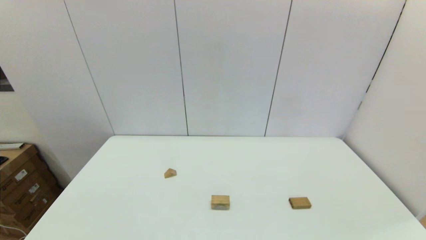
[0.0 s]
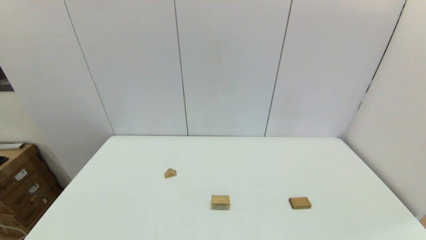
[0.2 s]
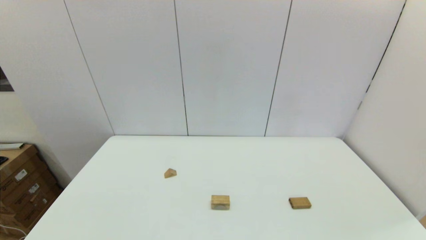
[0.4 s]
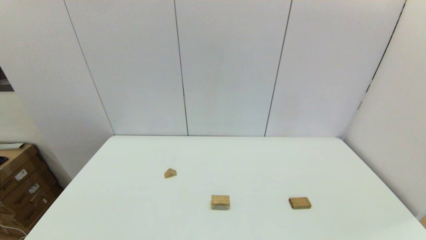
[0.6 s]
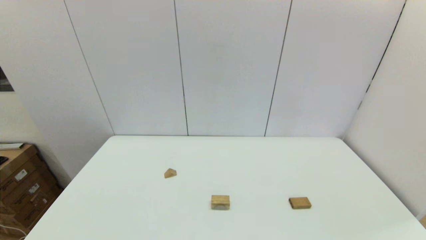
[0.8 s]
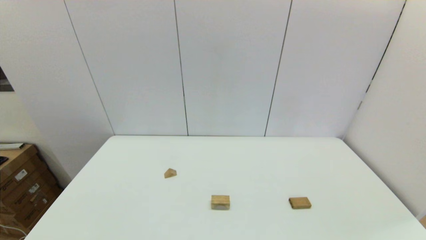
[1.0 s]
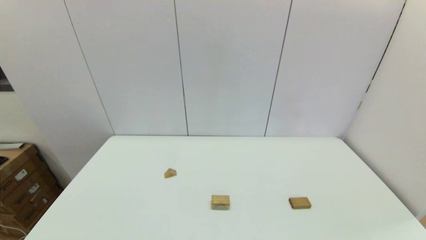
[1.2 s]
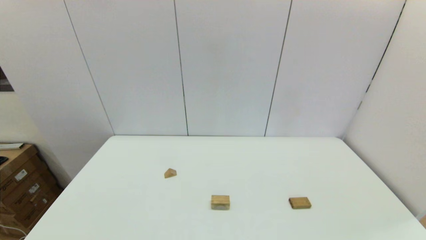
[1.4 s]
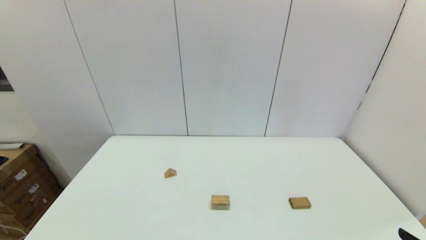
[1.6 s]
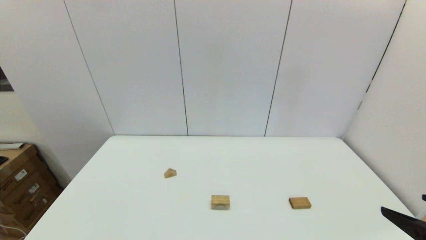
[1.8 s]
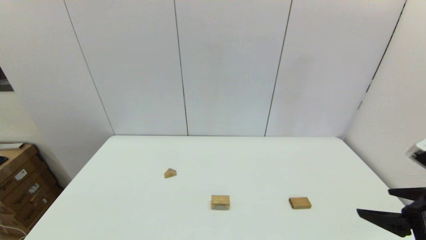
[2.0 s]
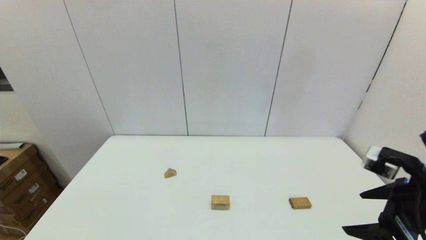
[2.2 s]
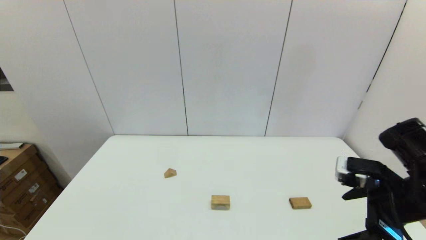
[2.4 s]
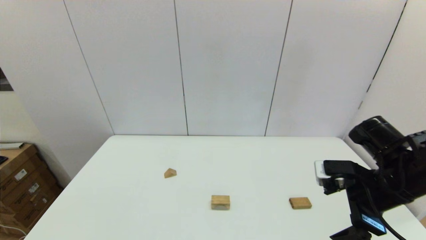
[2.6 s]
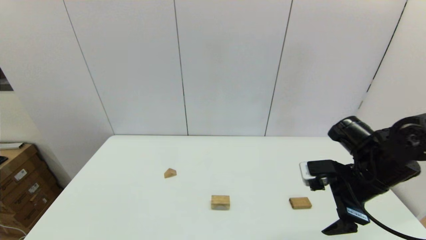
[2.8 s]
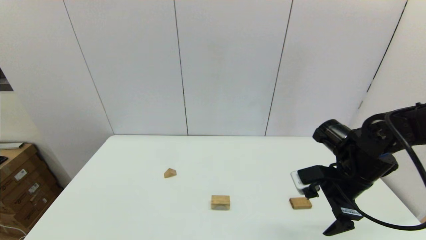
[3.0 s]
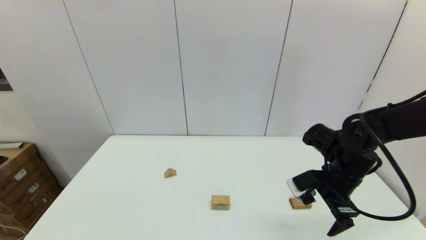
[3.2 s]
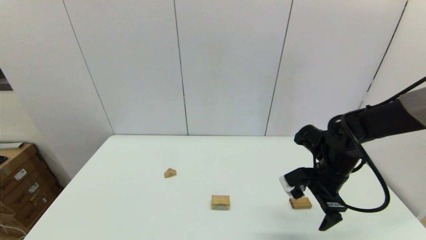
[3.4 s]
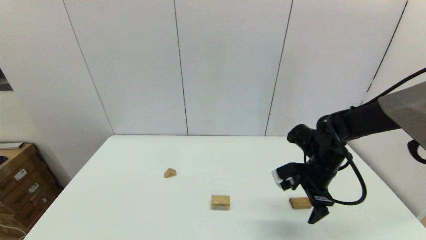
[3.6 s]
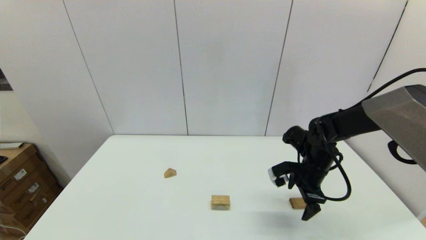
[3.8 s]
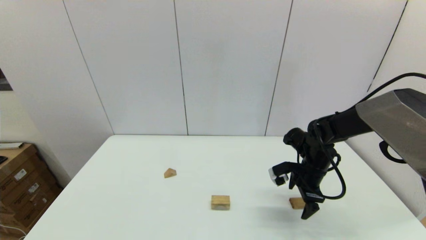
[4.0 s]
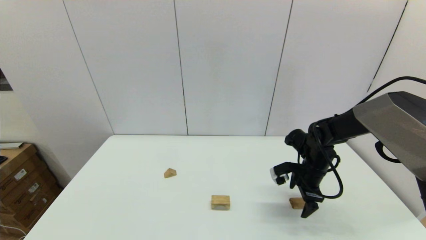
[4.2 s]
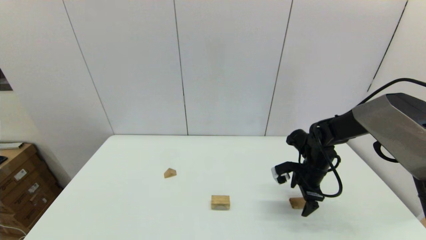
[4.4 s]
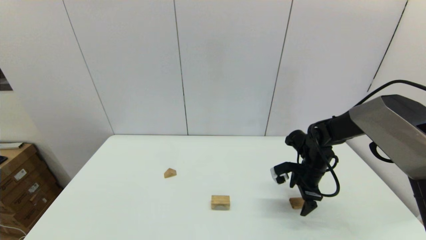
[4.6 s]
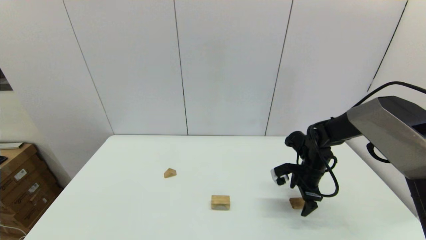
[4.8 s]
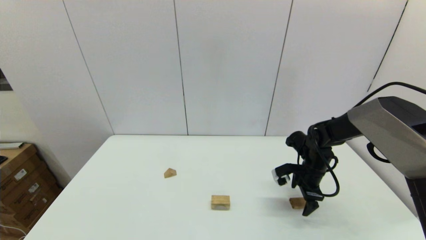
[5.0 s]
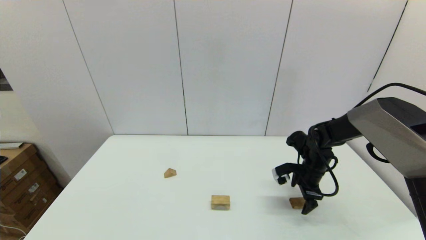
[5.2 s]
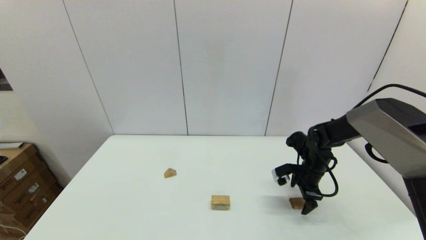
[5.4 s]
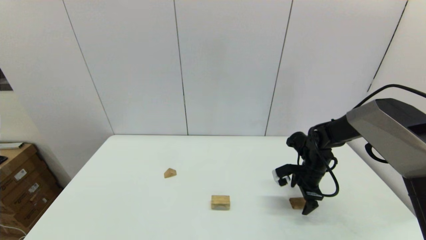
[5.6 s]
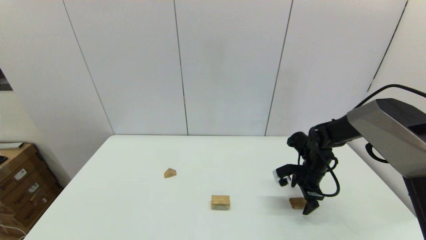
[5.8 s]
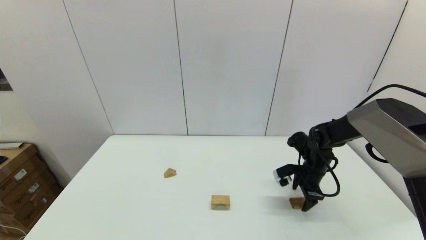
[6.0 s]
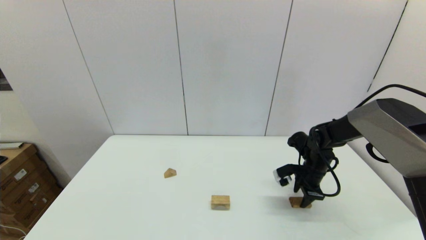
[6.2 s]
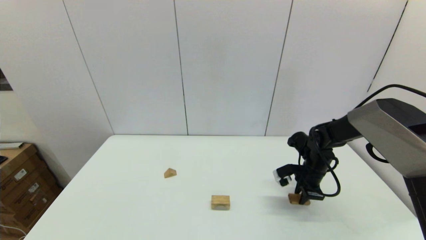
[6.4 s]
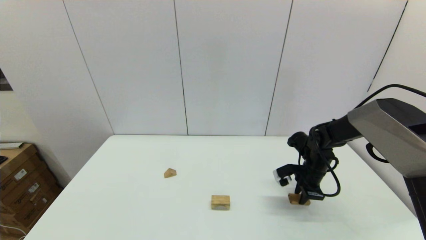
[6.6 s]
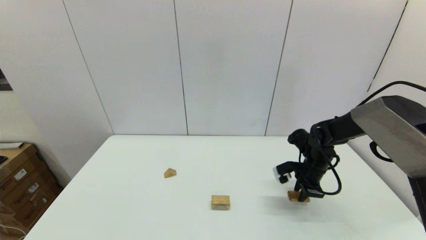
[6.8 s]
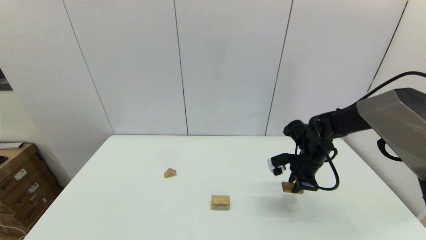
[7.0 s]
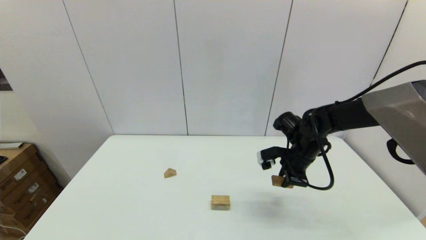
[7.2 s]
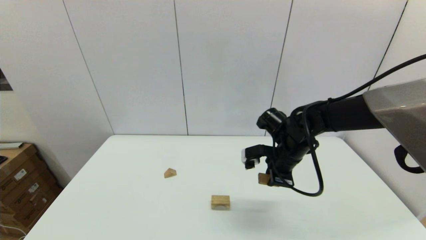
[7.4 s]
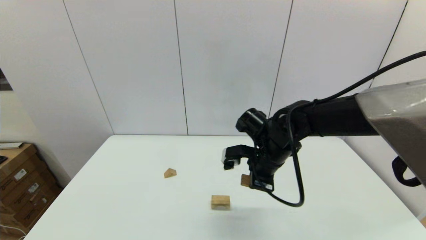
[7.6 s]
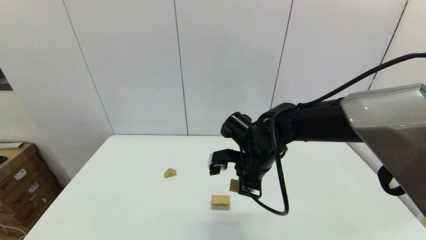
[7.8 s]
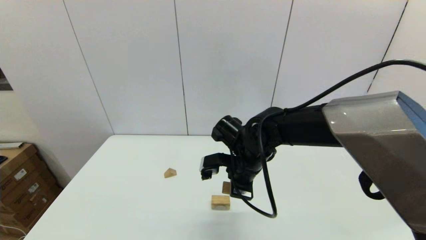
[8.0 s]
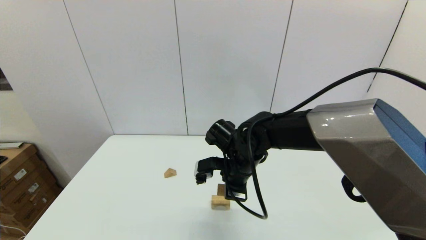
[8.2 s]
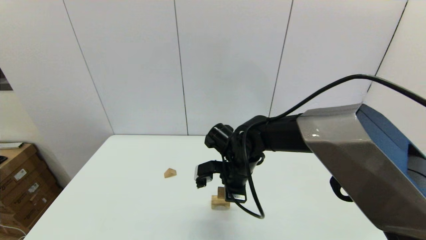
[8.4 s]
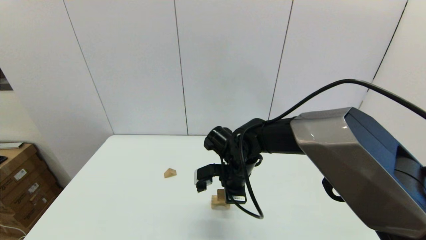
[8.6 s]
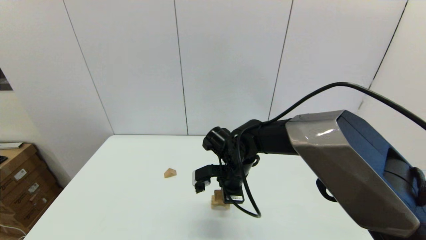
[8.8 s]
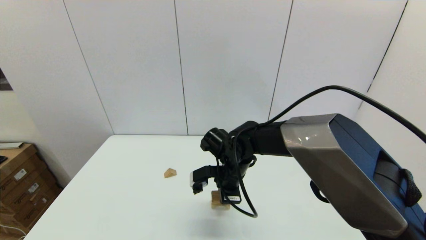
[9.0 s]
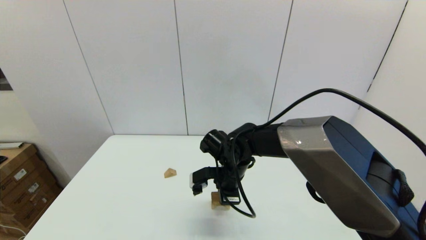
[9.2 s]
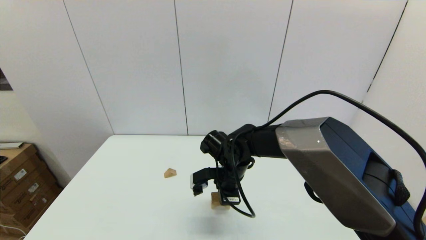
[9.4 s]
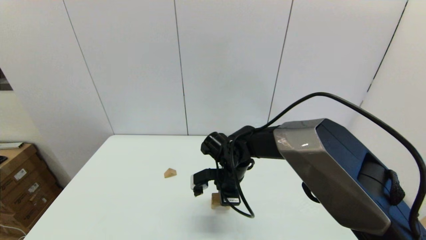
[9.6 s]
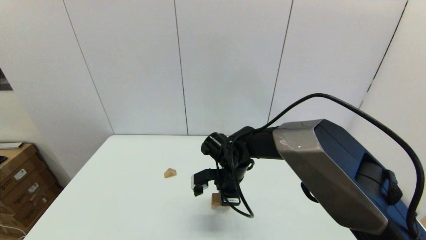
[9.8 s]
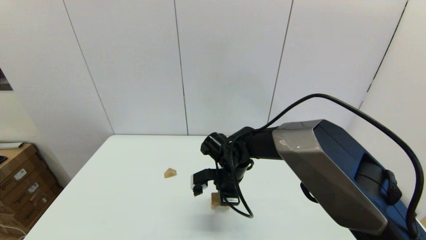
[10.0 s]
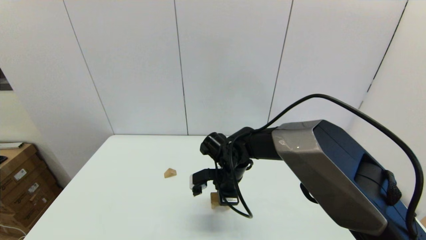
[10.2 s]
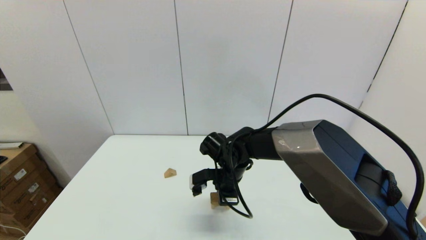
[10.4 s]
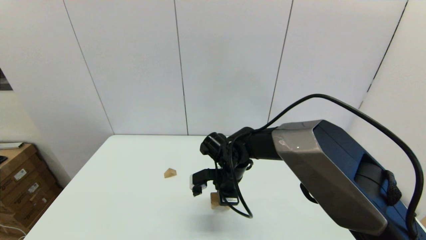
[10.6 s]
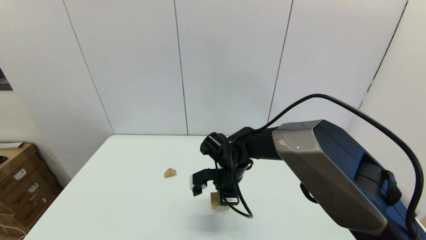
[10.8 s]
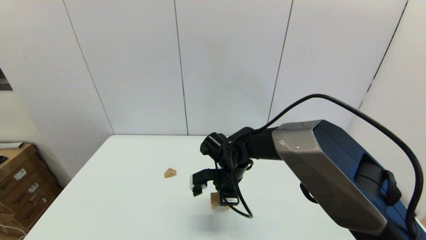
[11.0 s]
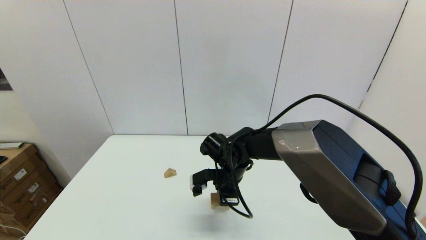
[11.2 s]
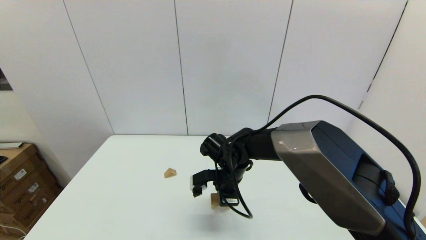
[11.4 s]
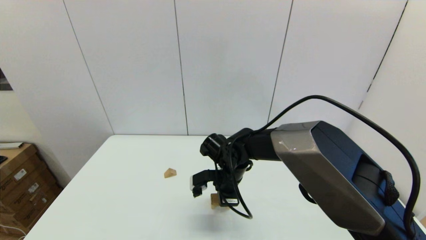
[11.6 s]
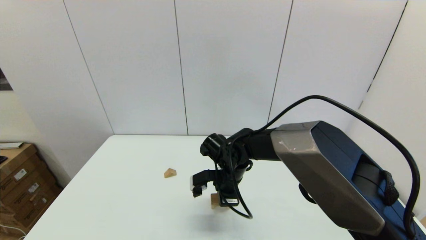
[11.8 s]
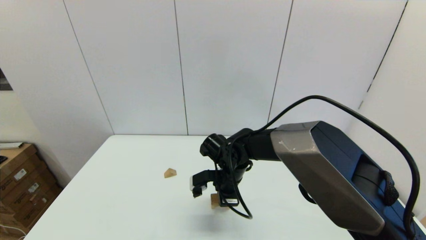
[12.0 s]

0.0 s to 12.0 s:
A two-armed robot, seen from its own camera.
Task of the whole recording: place the arched building blocks in the center of the table, set up the rectangular building blocks, and then set up the triangular building blocks.
Step, 0.0 to 6.2 s: Grasp the box-shaped block with the right gripper.
1.6 to 3.0 s: The right gripper shifts some 25 cm forward.
3.0 to 4.4 s: The right gripper moves forward and downward, some 15 cm.
4.4 to 6.0 s: There are only small adjustments of the grippers.
6.0 to 7.6 s: The right gripper travels to the left, upward and backward by about 20 cm, and closes its fingers.
7.6 to 9.0 s: The right gripper is displaced to the left and downward by some 10 cm.
9.0 to 10.4 s: The grippers stay close to where they were, moving slightly.
10.4 to 12.0 s: Both grippers stay about where they are.

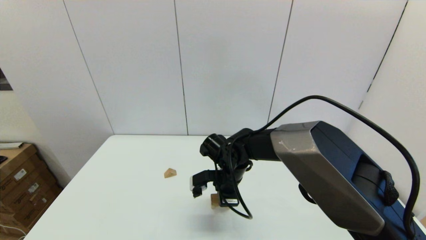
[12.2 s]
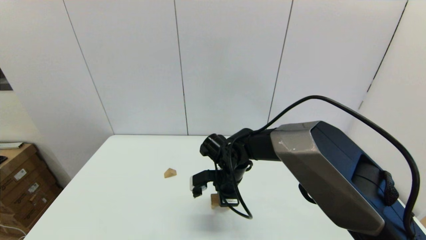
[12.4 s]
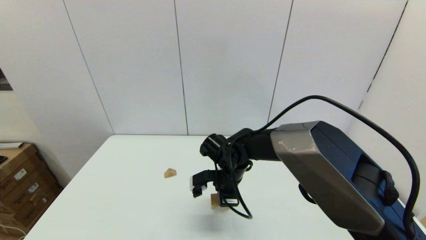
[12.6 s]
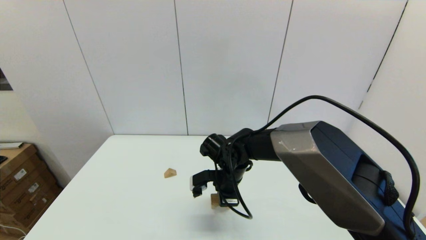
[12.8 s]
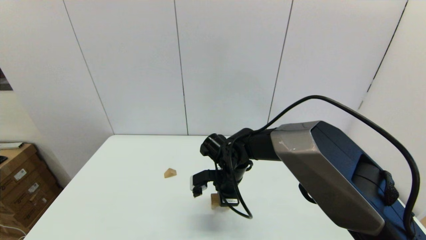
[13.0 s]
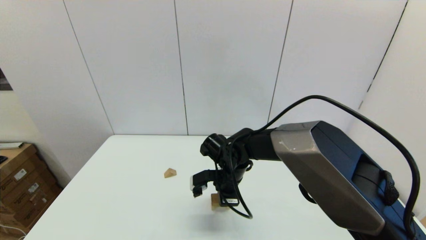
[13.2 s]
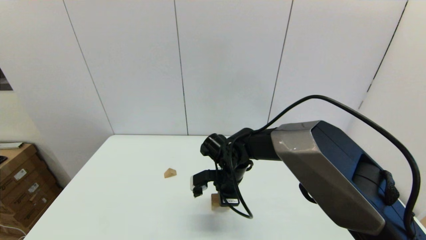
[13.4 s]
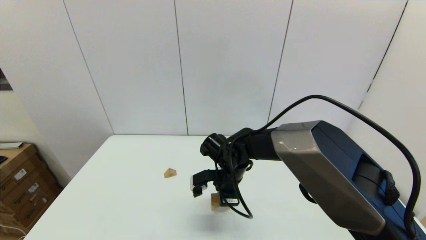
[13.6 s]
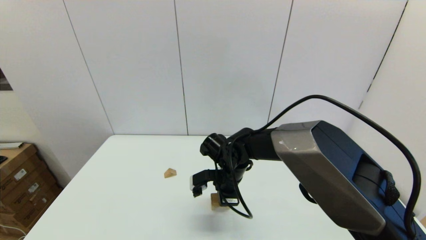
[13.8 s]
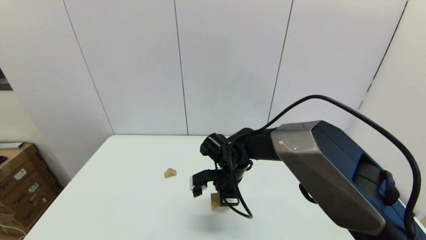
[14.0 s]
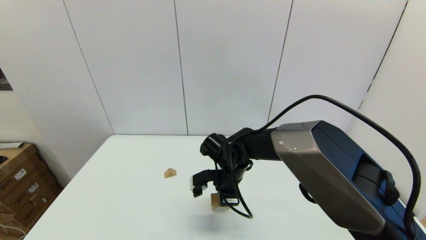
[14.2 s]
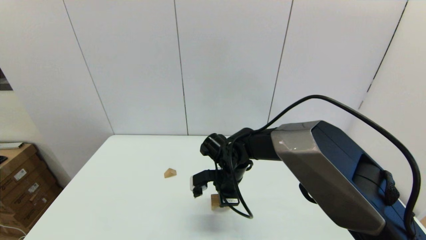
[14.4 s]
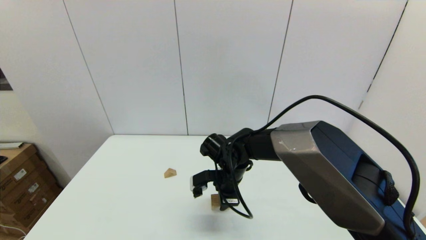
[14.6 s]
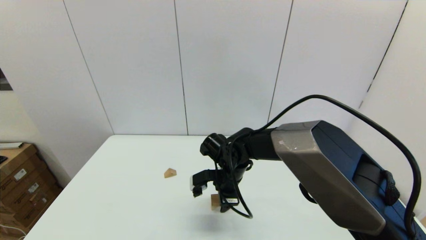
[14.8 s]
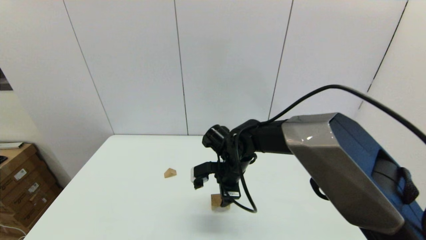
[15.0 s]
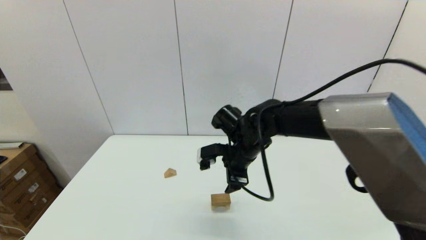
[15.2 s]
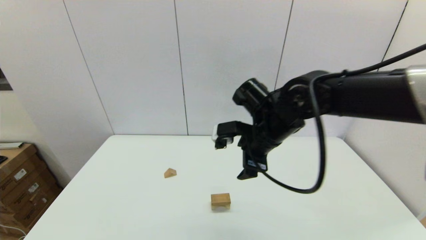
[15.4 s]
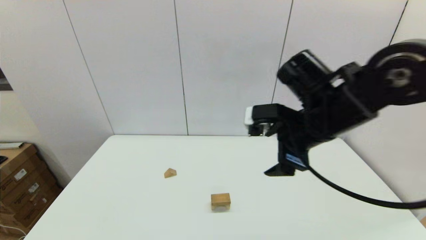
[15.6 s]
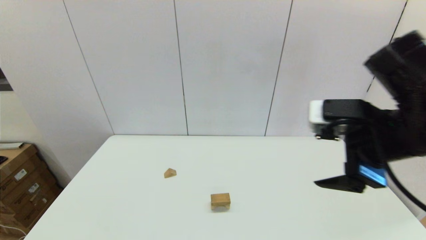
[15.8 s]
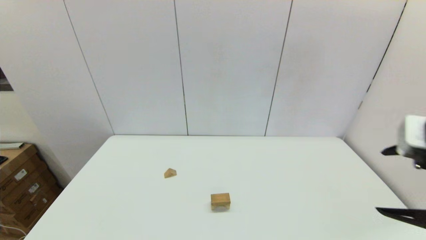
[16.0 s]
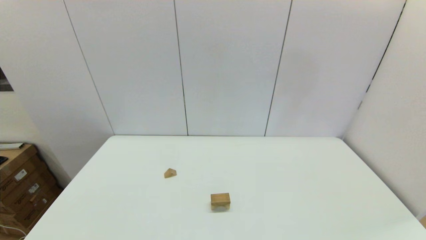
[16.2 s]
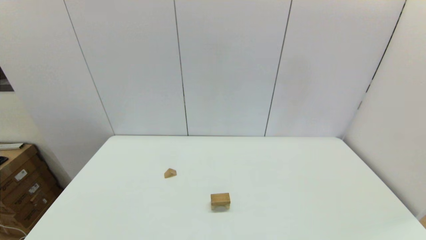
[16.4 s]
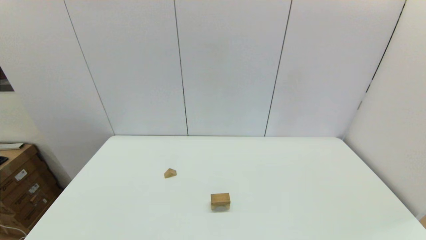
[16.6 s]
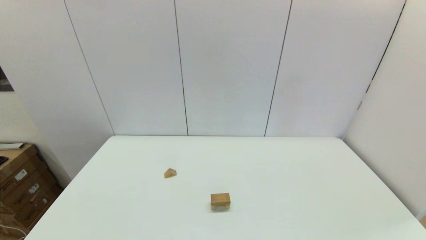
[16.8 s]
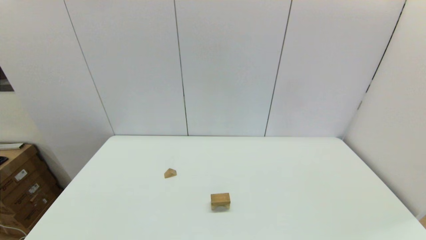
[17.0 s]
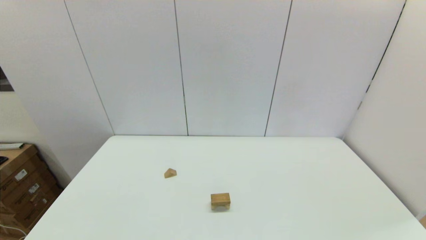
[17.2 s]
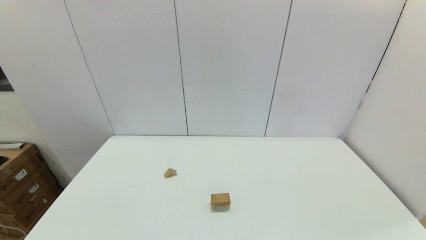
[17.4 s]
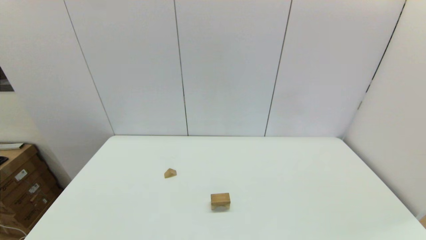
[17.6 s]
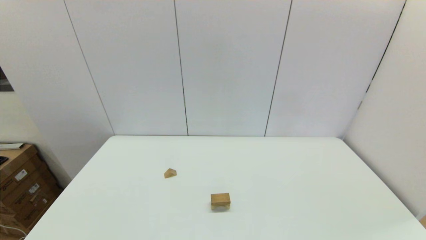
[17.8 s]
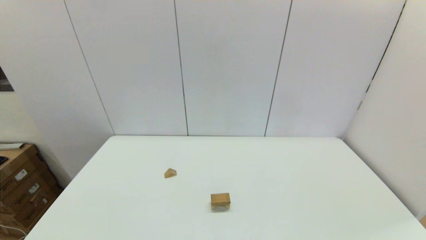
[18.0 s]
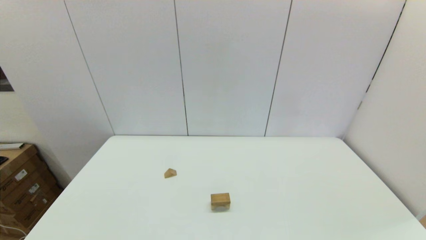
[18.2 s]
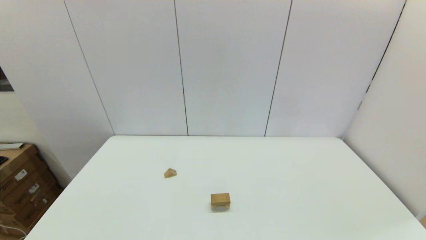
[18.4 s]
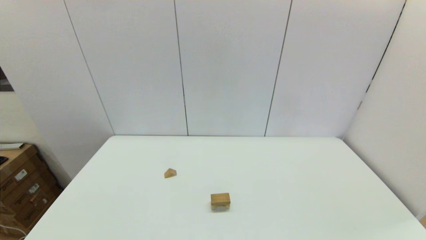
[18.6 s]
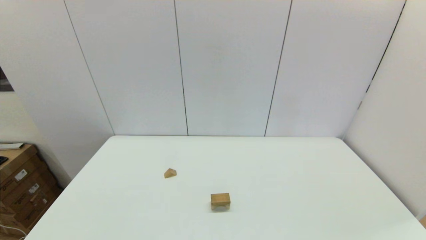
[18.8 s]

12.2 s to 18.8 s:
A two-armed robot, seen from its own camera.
Task of the whole recording: place the arched building blocks in the center of the table, set up the rectangular building blocks, and then set up the triangular building blocks.
12.2 to 13.8 s: Both grippers stay about where they are.
13.8 to 15.4 s: The right gripper goes some 15 cm upward and to the right, and opens its fingers.
15.4 to 17.2 s: The right gripper moves backward and to the right, roughly 40 cm.
